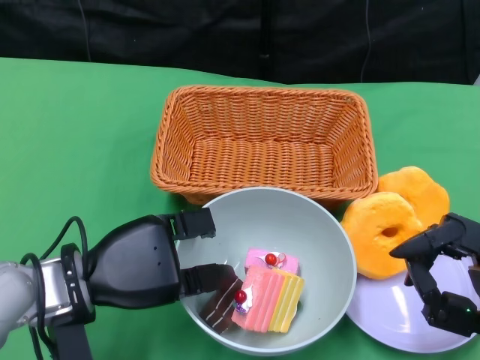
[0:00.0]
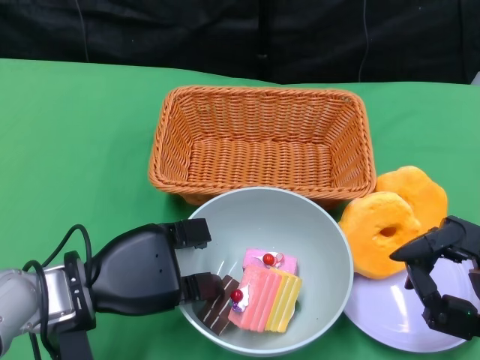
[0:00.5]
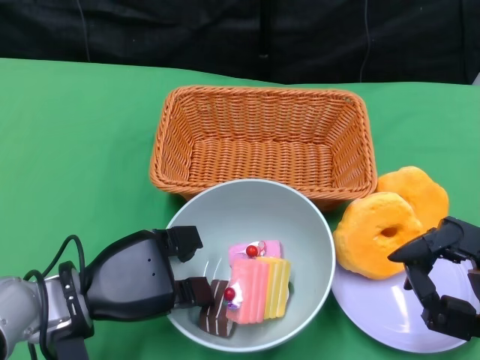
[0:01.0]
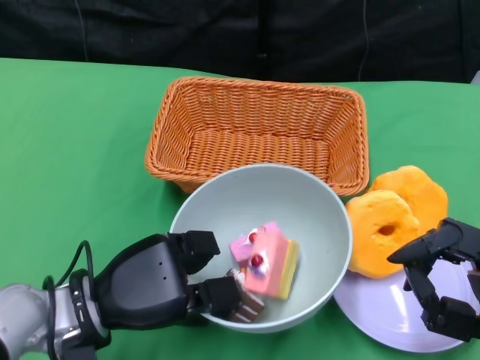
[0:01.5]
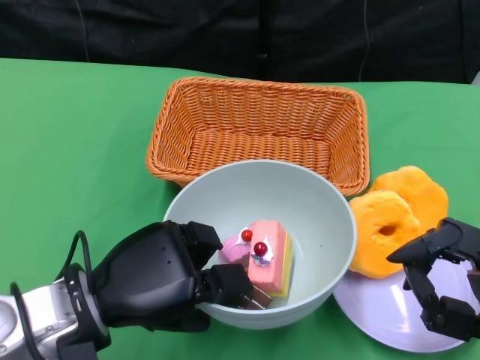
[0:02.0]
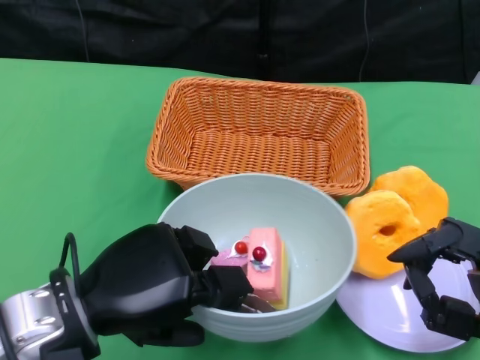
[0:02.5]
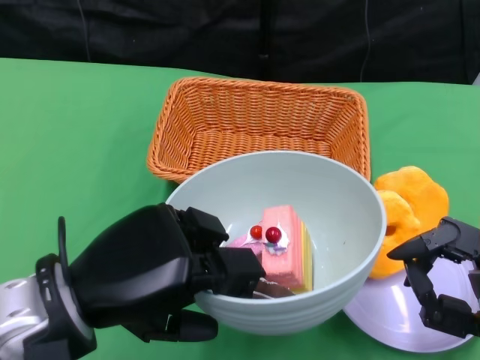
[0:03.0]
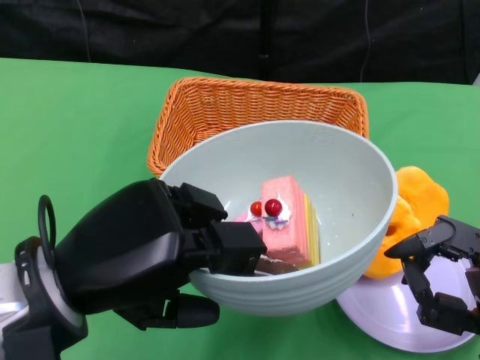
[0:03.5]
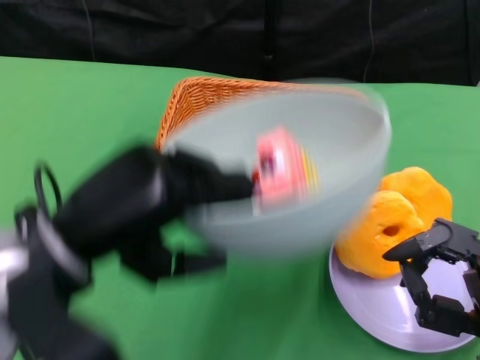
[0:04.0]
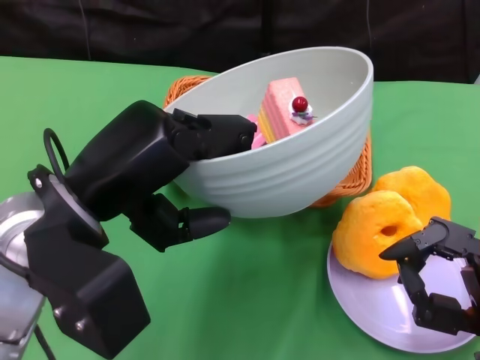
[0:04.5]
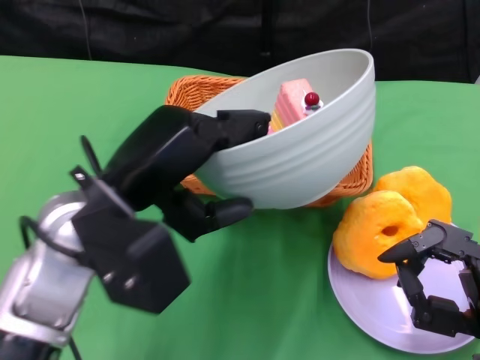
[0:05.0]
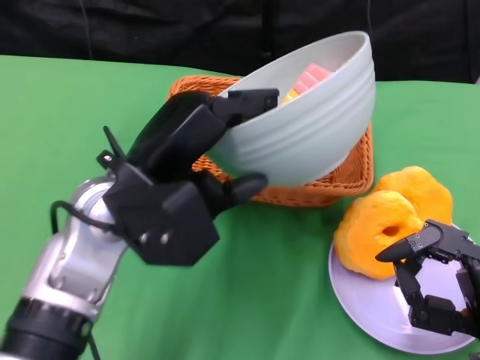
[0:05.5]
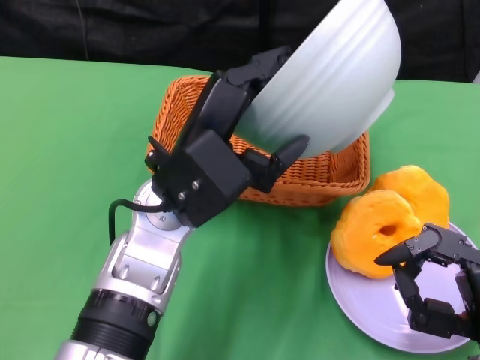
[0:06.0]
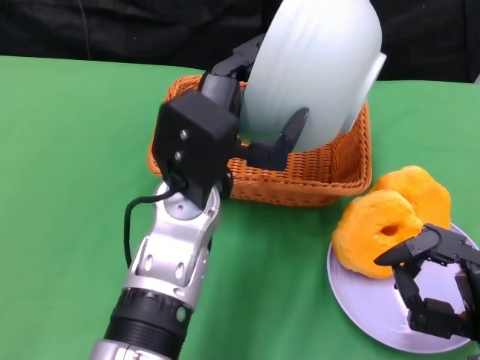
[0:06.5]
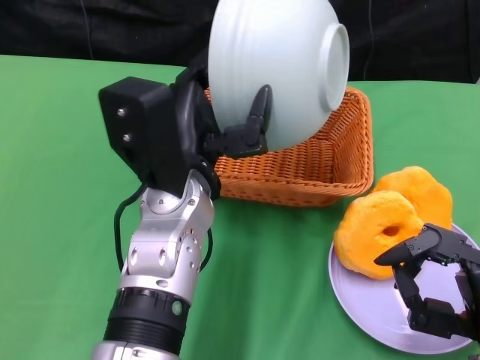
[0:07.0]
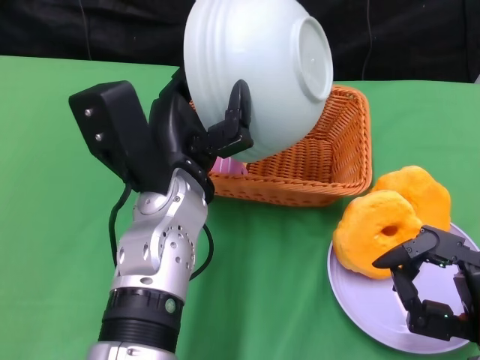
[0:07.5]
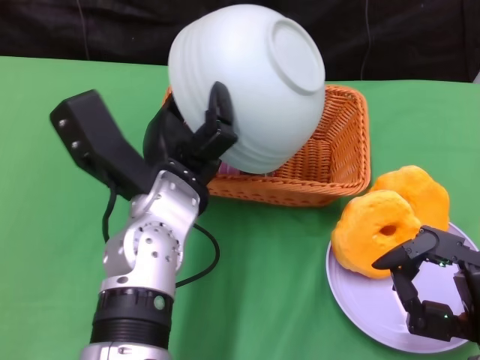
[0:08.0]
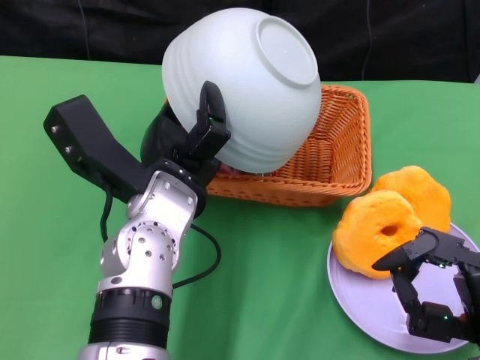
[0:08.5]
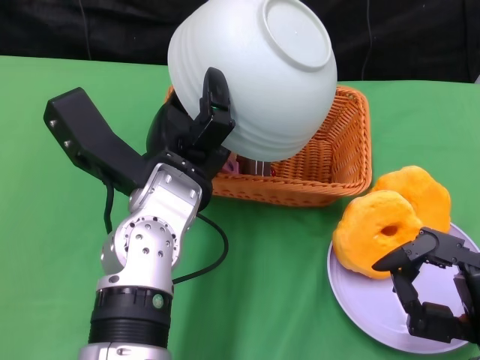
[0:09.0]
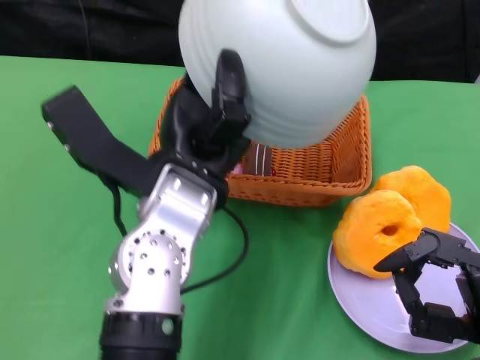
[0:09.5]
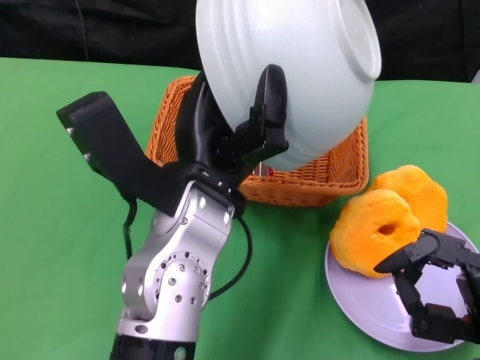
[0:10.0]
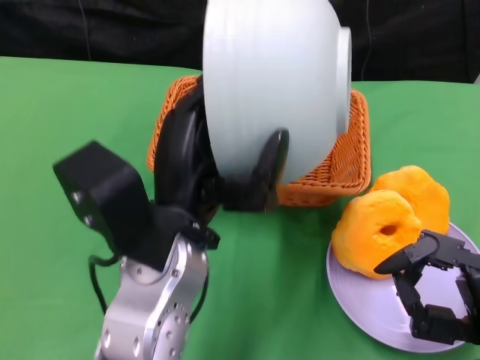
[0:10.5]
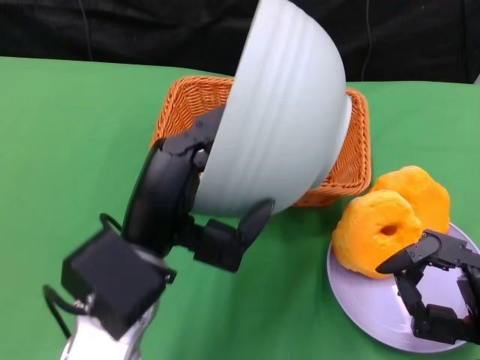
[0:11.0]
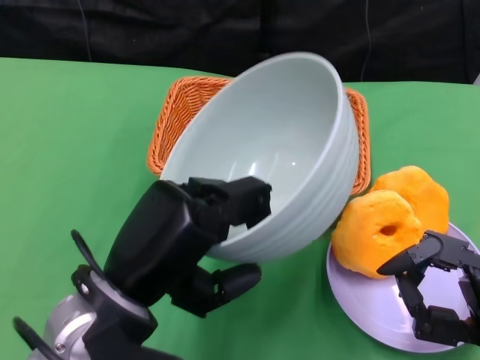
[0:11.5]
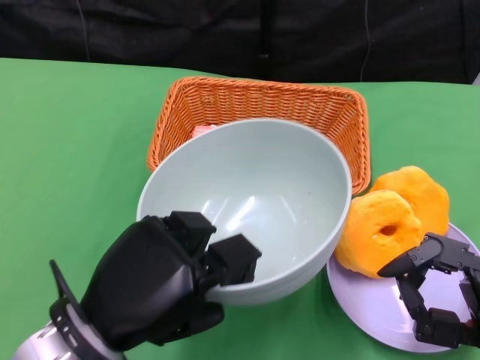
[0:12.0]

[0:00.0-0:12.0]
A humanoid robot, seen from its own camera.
Step, 0:01.5 to 0:10.0: Pour the cake into the basket with the left gripper.
0:02.0 to 0:04.0: The left hand is displaced upward by about 10 cm.
0:04.0 to 0:06.0: The left hand heads to the right and forward, covering approximately 15 cm.
0:08.0 to 0:10.0: The left hand ends up about 5 cm from where it was.
0:10.0 to 0:12.0: The left hand travels to the left, backward and downward by some 15 cm.

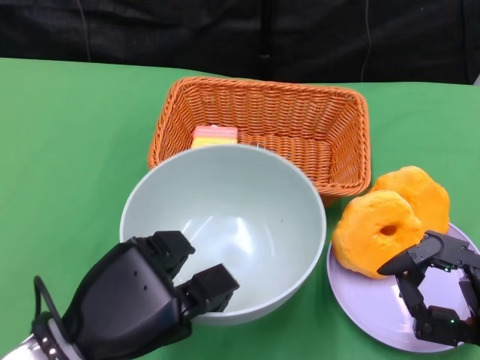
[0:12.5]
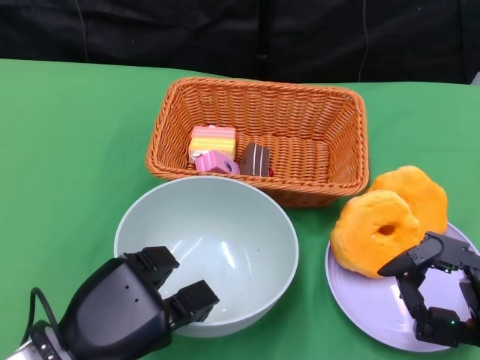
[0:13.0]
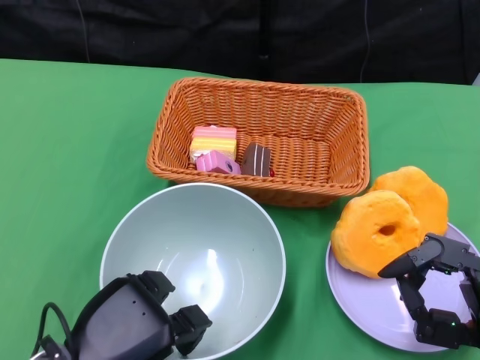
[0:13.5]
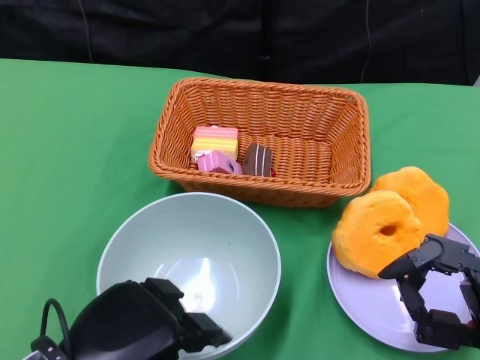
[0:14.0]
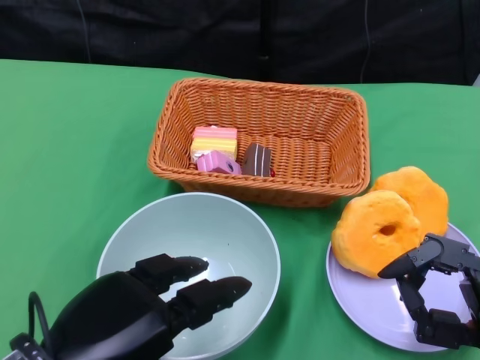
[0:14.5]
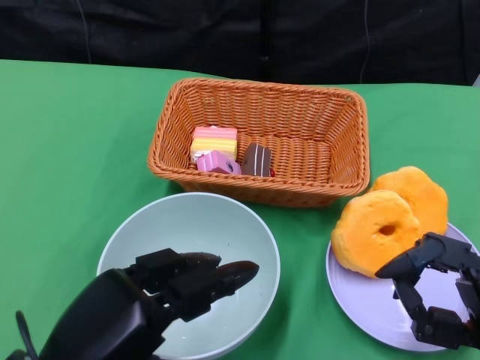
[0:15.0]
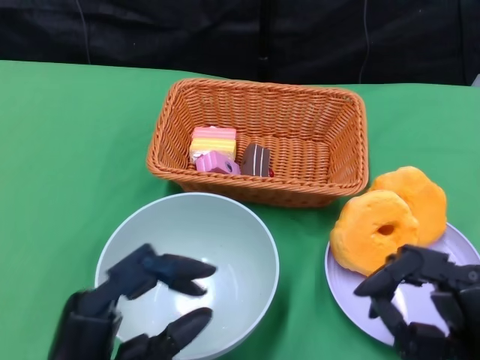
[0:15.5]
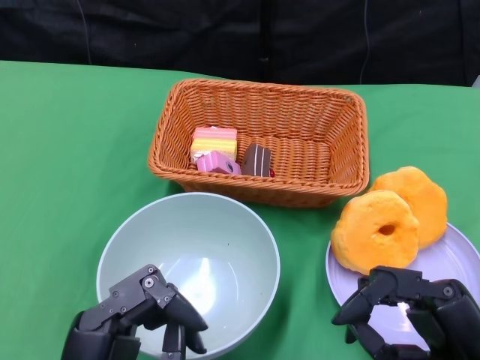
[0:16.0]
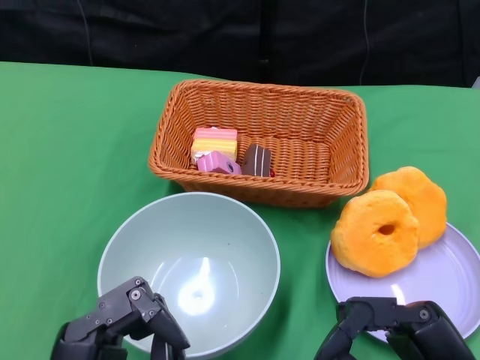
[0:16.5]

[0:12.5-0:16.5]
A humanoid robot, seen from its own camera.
0:12.5 to 0:14.5: The left hand reaches about 5 cm downward, then returns.
0:14.5 to 0:16.5: The left hand goes some 5 cm downward.

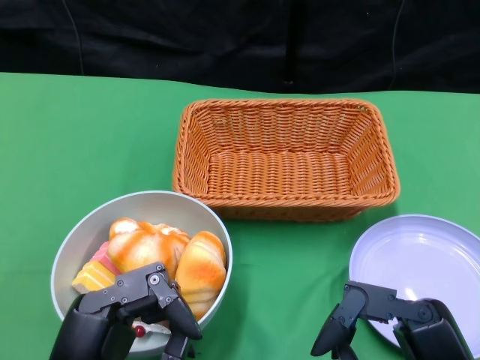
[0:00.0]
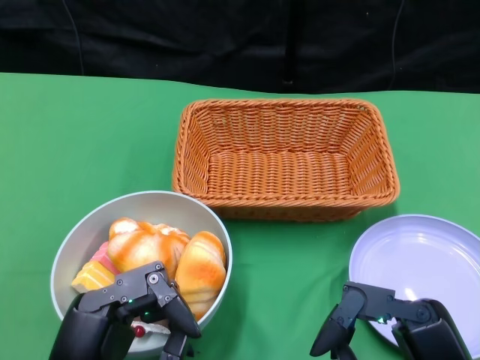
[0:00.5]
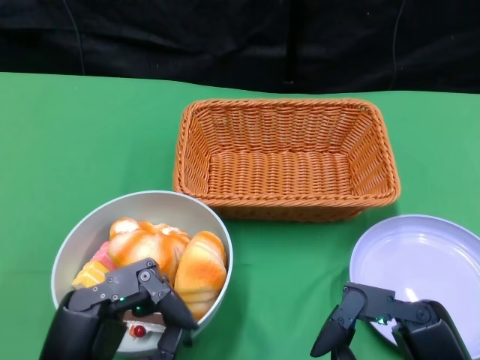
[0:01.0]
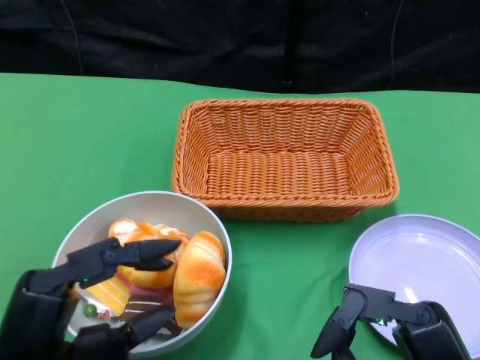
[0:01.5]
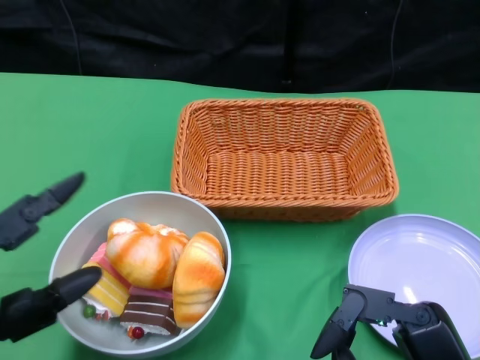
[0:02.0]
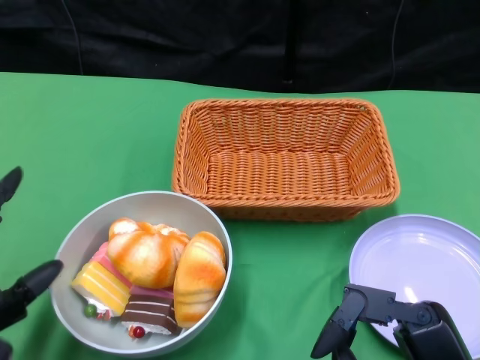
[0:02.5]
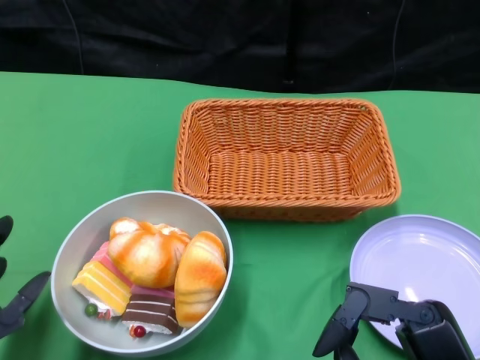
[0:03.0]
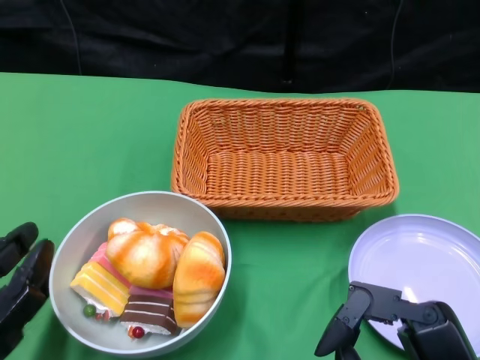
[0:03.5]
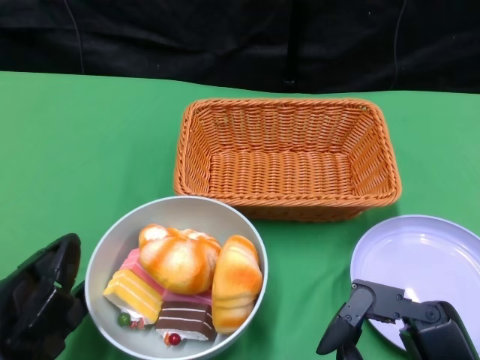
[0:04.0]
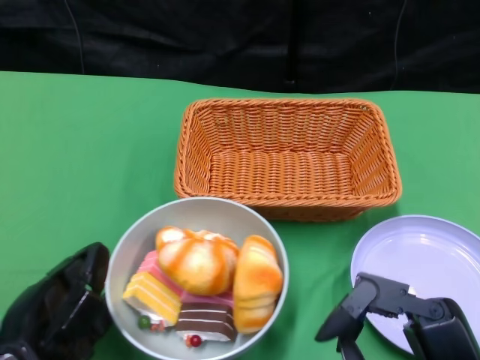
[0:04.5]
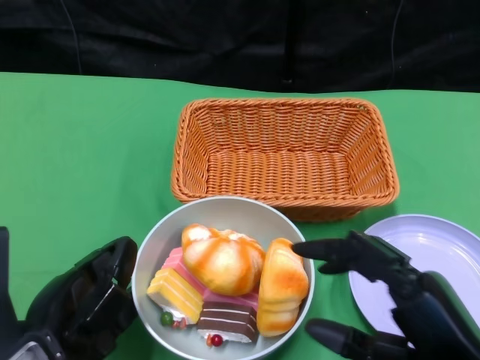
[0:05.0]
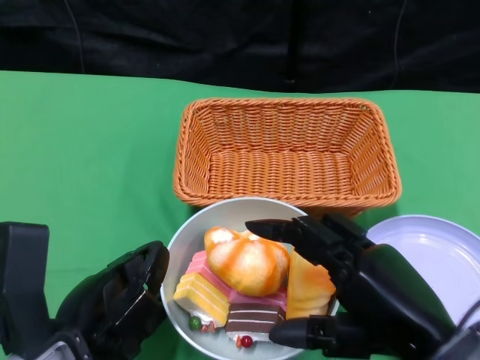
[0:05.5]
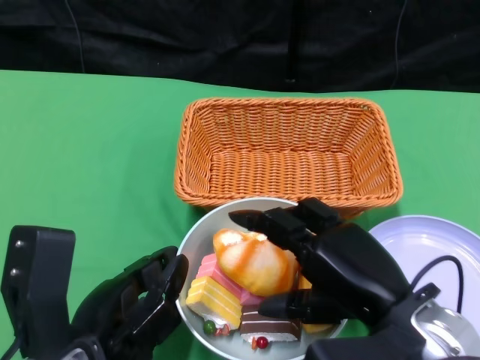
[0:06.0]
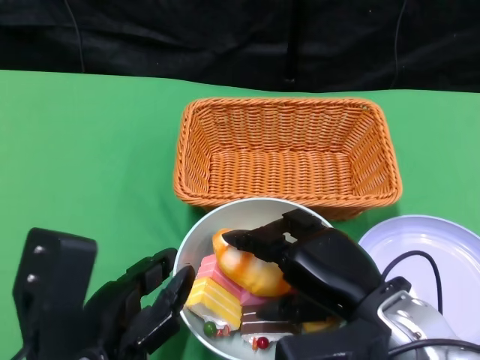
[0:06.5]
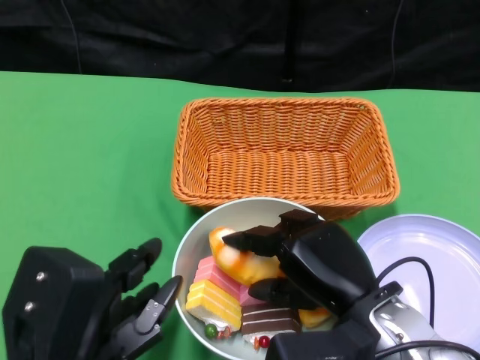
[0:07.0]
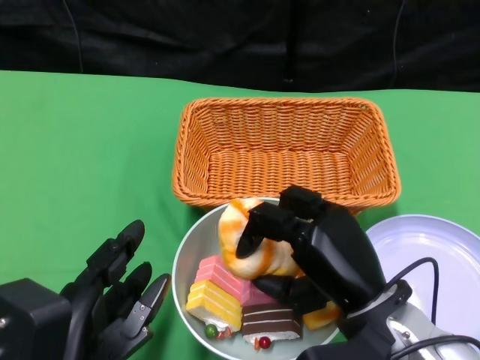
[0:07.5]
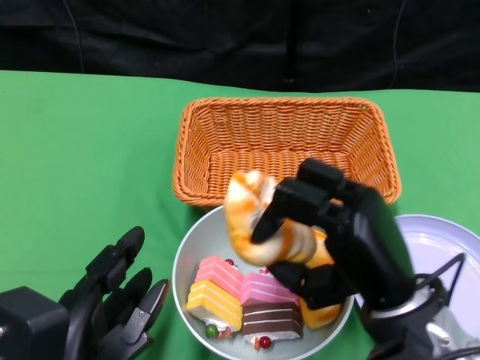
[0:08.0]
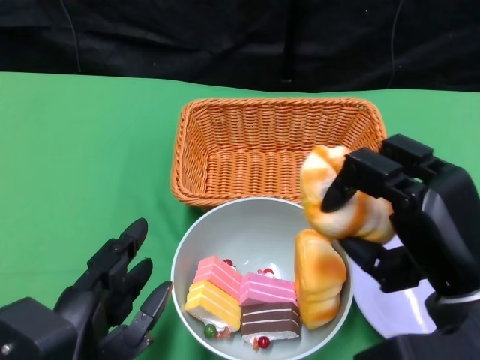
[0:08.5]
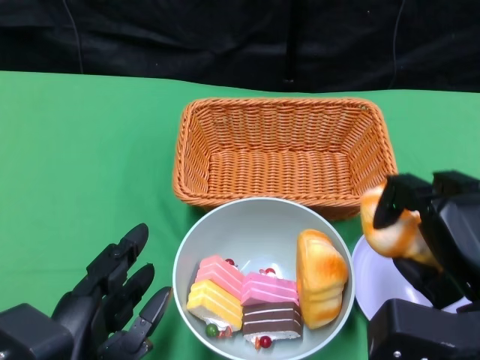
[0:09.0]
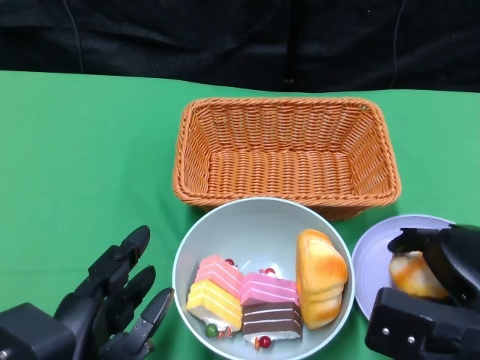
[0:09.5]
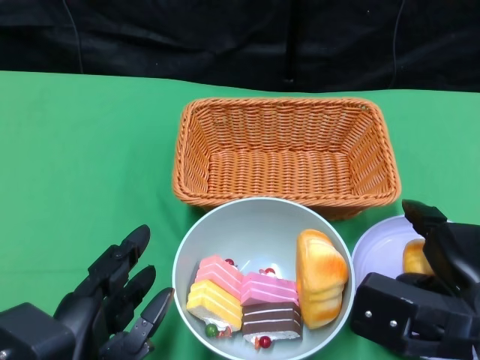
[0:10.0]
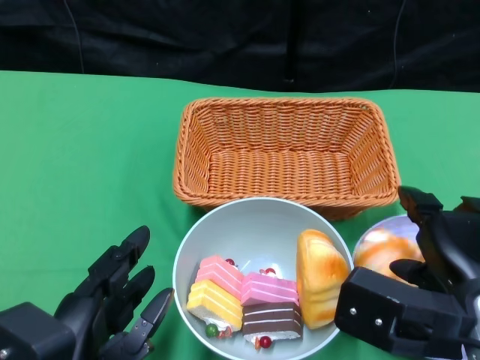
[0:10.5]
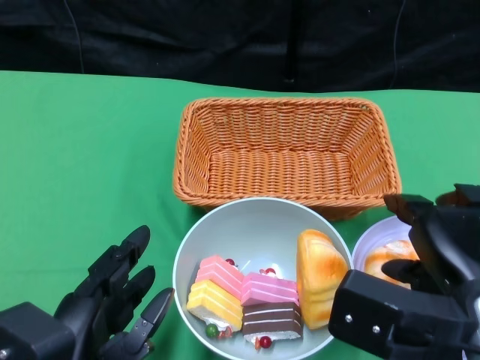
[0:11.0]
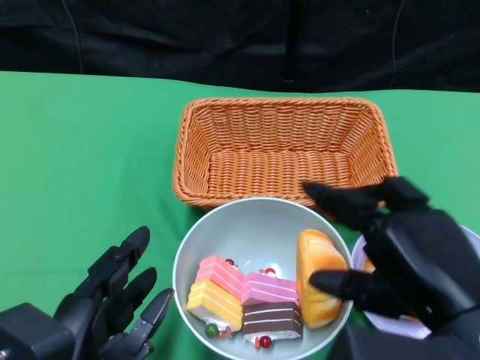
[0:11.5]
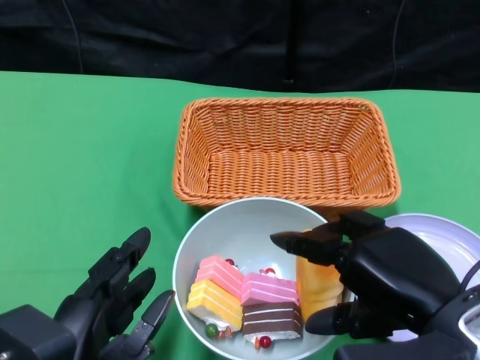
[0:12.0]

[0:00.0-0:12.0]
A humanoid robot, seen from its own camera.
Step, 0:00.0 to 0:05.0: Push the bowl to the center of the table using the left gripper.
0:04.0 to 0:06.0: The right hand travels forward by approximately 10 cm; the left hand shifts roughly 5 cm to the right.
0:08.0 to 0:10.0: The right hand shifts roughly 10 cm to the right.
0:10.0 to 0:12.0: The right hand shifts by some 5 cm.
